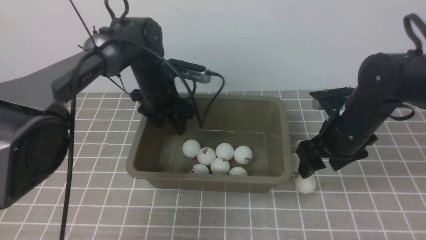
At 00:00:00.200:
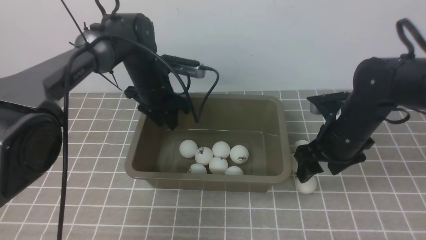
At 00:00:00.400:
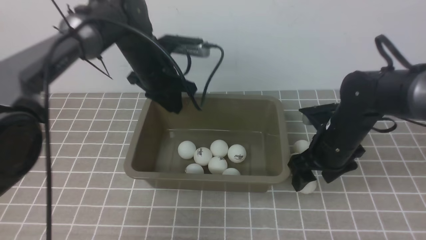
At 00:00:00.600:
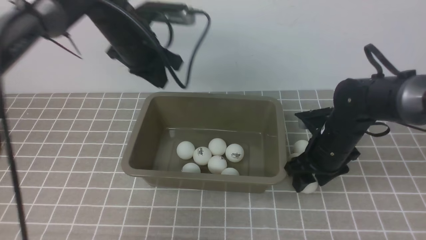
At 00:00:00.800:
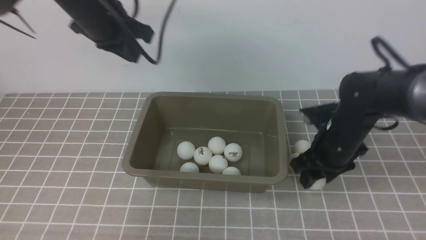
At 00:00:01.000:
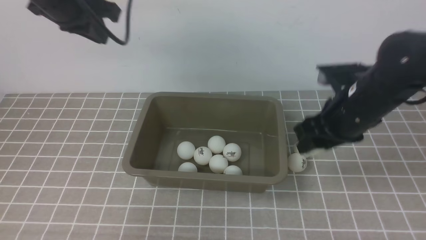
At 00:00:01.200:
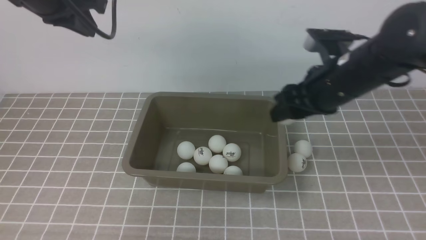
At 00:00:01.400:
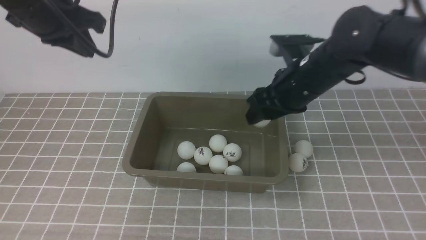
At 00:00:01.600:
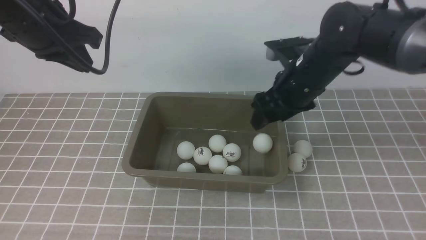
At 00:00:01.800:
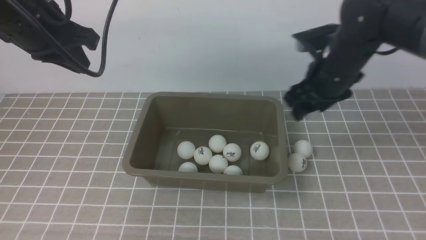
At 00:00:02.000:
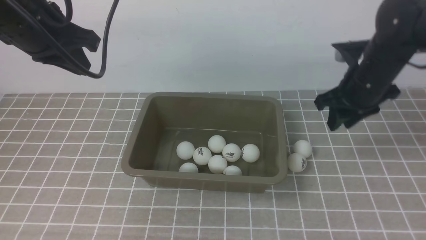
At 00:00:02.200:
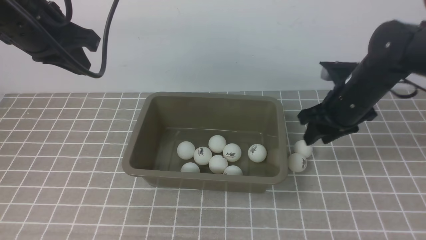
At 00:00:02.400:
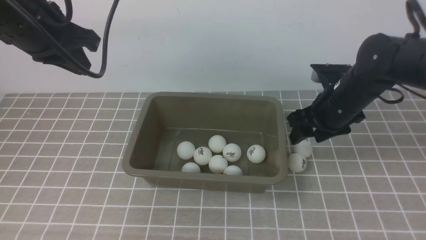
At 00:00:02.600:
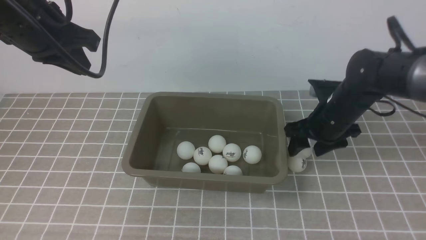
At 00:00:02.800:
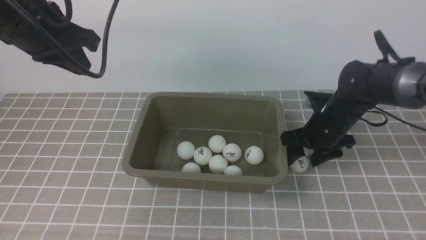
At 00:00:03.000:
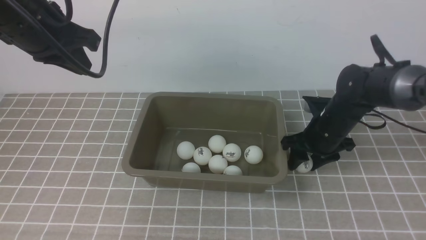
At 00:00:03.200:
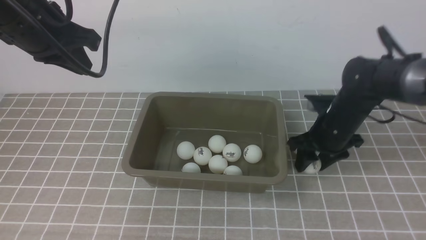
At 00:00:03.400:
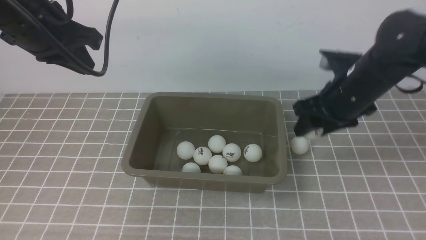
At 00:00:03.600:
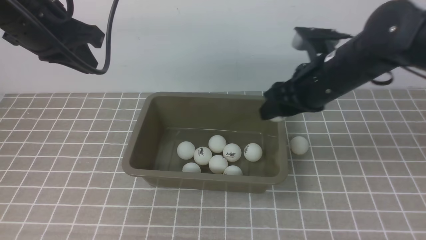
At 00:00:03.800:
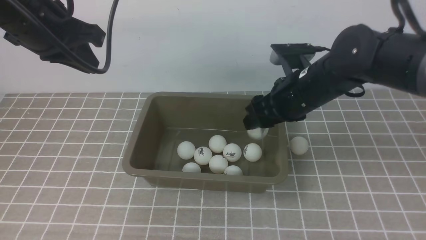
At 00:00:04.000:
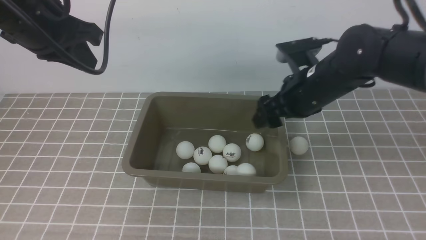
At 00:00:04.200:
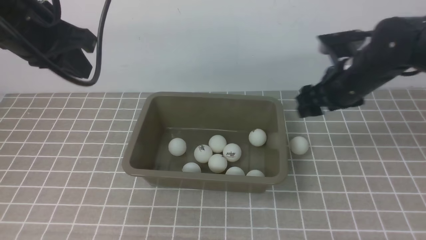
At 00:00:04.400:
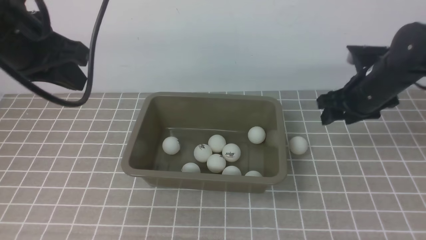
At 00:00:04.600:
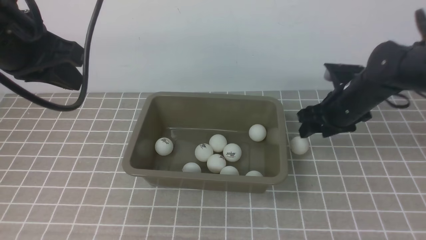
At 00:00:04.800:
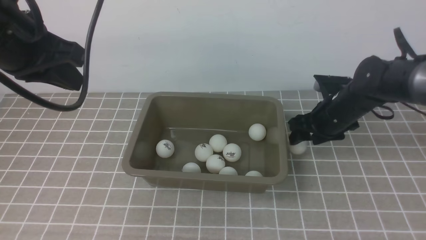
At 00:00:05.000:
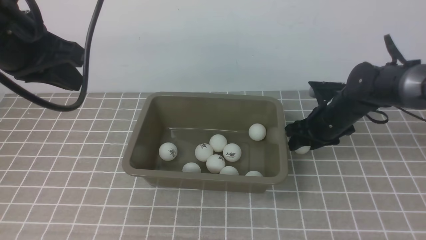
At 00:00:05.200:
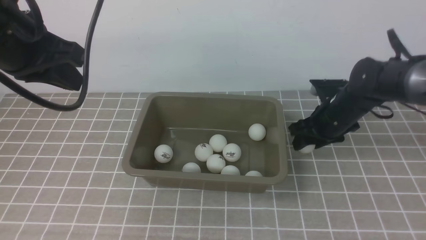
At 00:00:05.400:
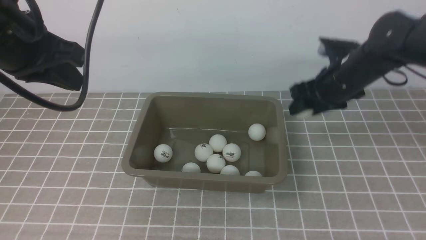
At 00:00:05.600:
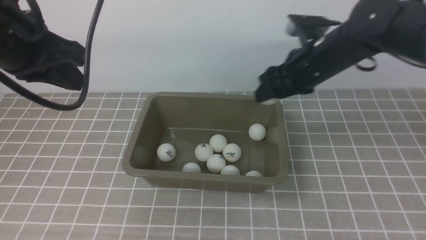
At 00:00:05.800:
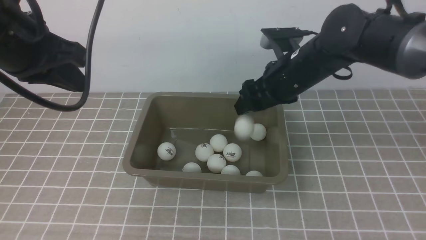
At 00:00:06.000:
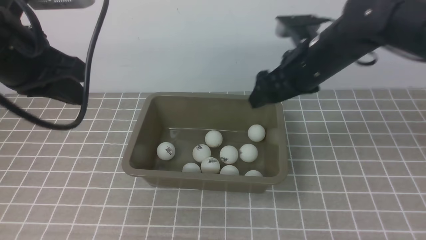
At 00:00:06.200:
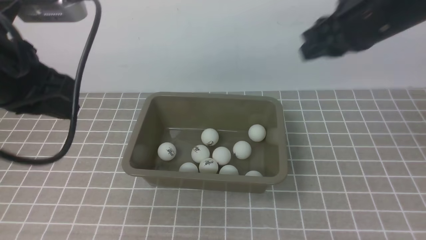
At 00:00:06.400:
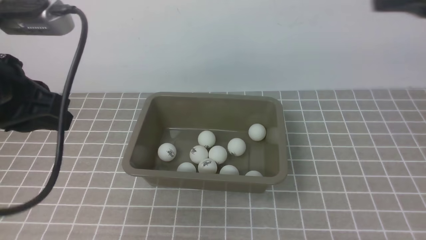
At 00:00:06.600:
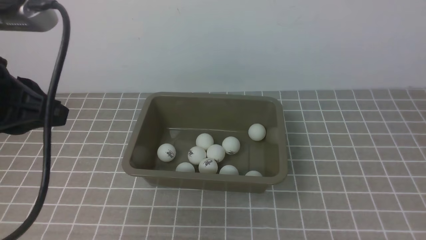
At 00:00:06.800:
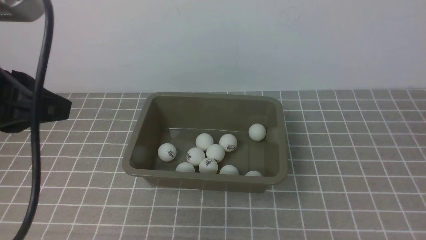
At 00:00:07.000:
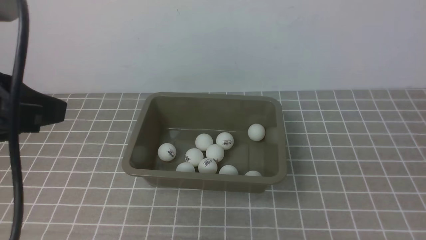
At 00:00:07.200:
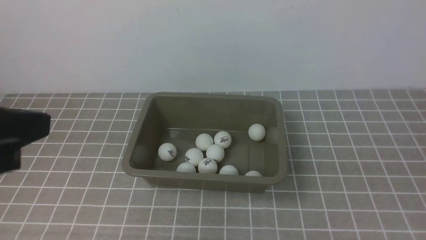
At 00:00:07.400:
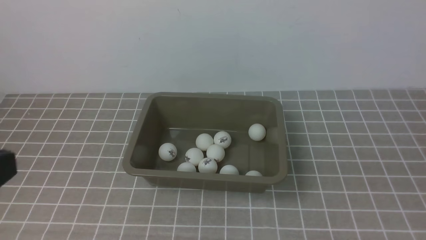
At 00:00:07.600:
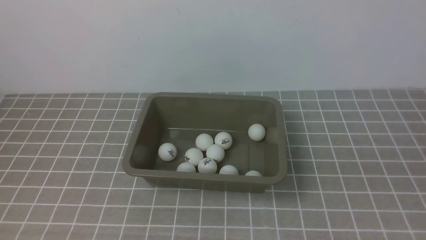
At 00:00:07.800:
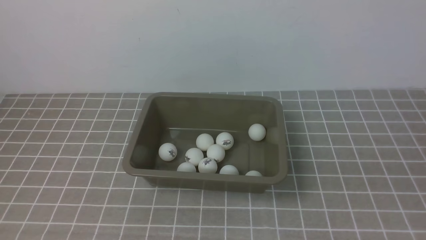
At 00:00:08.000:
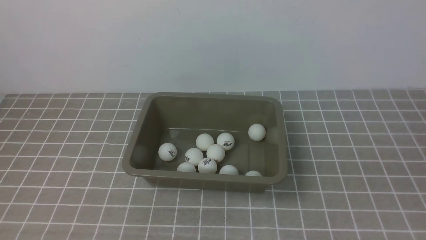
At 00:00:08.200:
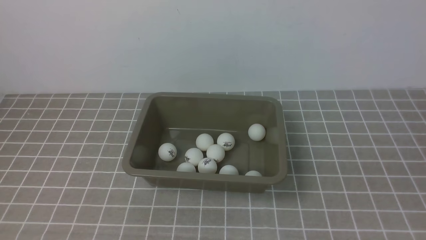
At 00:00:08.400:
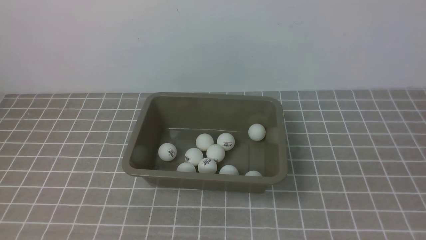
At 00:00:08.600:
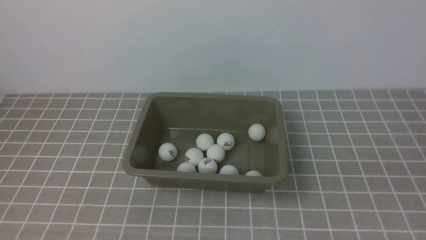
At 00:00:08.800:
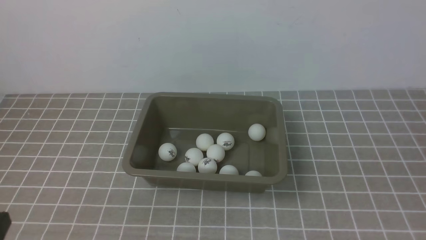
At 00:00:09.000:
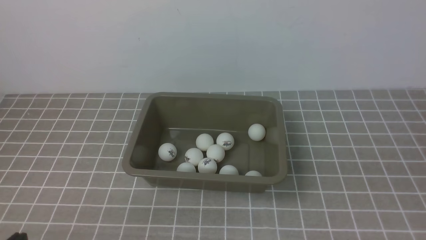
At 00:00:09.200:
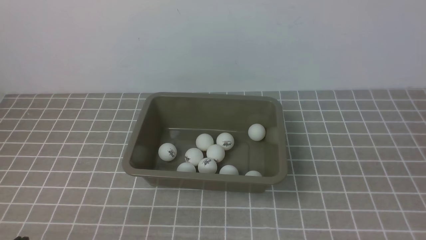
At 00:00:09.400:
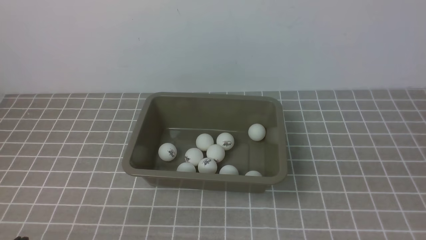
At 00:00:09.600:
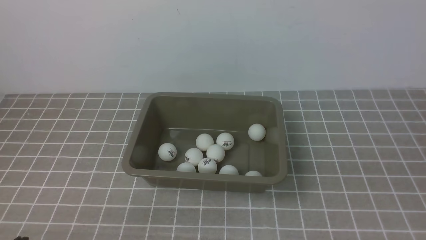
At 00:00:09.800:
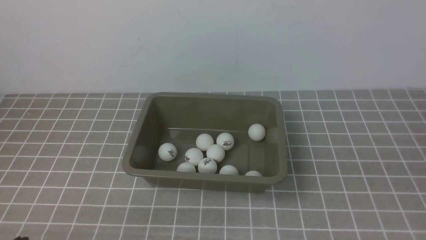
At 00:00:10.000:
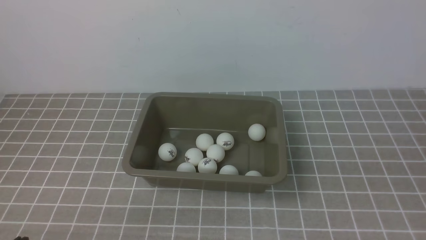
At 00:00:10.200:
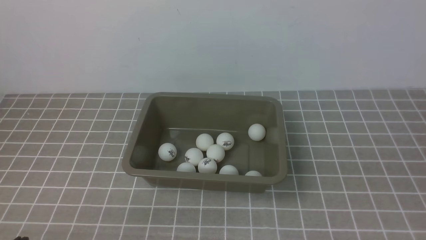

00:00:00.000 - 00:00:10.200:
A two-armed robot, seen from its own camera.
Step, 00:00:00.000 - 00:00:00.800: use the right arm to clamp the table tennis ball closest to it.
Step, 00:00:01.000 - 00:00:01.600: use the right arm to put the table tennis ball into the box.
Step, 00:00:01.800 - 00:00:03.200: use the right arm to clamp the table tennis ball closest to it.
Step, 00:00:03.400 - 00:00:04.000: use the right arm to put the table tennis ball into the box.
Step, 00:00:04.200 - 00:00:05.400: use the right arm to clamp the table tennis ball closest to it.
Step, 00:00:05.600 - 00:00:05.800: use the right arm to put the table tennis ball into the box.
00:00:00.000 - 00:00:01.400: The right gripper travels upward and to the left by roughly 10 cm. The left gripper shifts roughly 25 cm upward, to the left and backward, and closes.
00:00:01.400 - 00:00:03.000: The right gripper is displaced downward and to the right by approximately 15 cm.
00:00:03.000 - 00:00:04.400: The right gripper is displaced upward by some 5 cm.
00:00:04.400 - 00:00:05.800: The right gripper shifts approximately 10 cm to the left and upward.
00:00:05.800 - 00:00:07.200: The right gripper is displaced backward and to the right by roughly 40 cm, and closes up. Meanwhile the left gripper shifts roughly 15 cm backward.
00:00:07.200 - 00:00:08.800: The left gripper heads downward and backward, covering some 20 cm.

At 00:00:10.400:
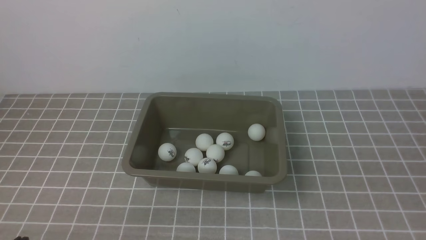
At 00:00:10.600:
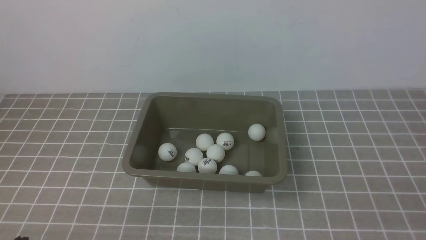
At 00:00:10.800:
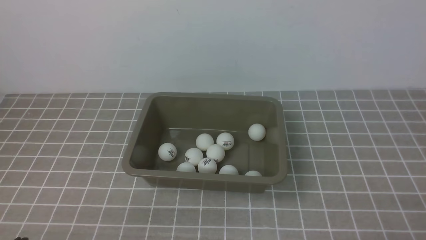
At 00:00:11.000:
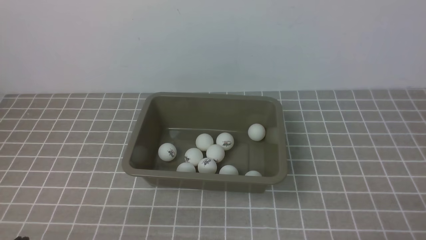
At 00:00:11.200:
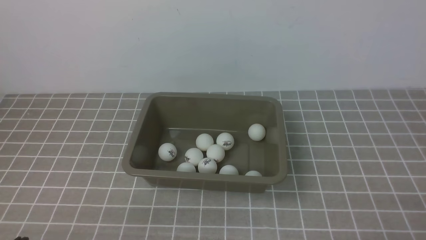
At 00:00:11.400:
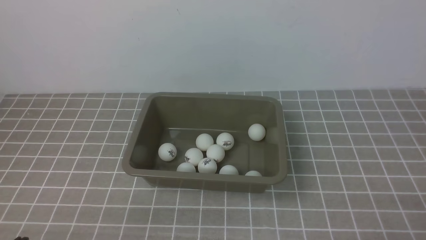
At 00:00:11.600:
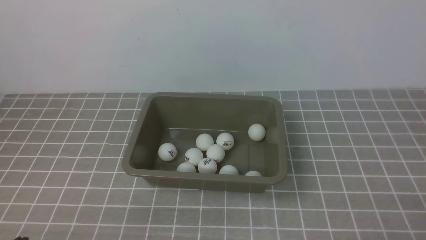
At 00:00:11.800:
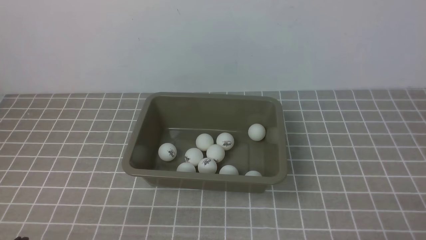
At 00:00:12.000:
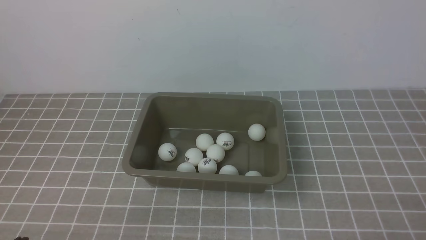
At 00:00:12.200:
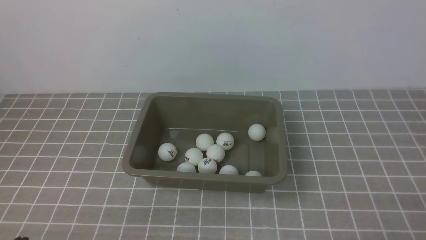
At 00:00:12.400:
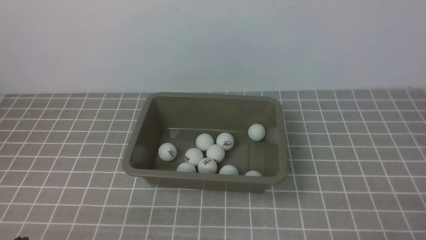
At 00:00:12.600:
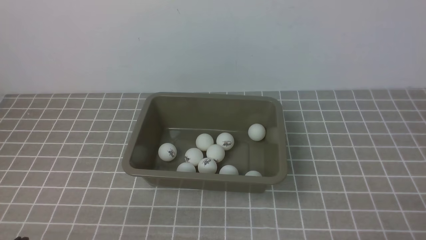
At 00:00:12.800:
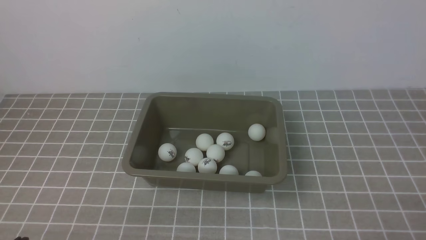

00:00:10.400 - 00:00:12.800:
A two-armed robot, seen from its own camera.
00:00:11.600 - 00:00:12.800: Both grippers stay put.
